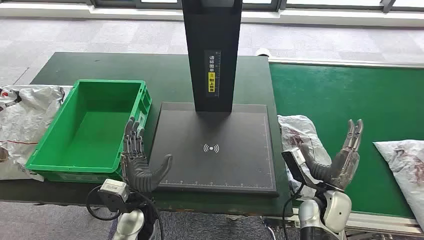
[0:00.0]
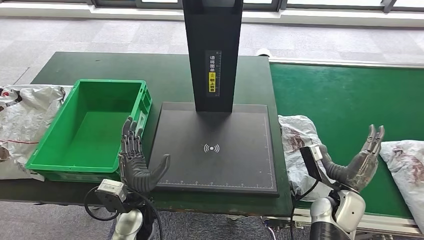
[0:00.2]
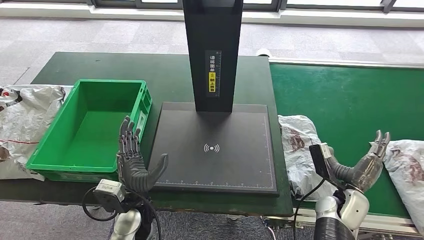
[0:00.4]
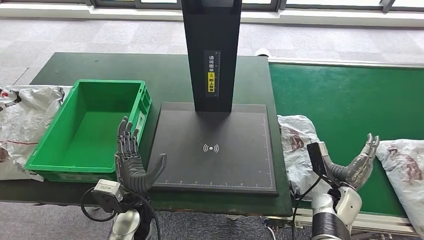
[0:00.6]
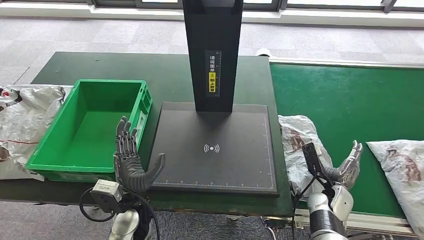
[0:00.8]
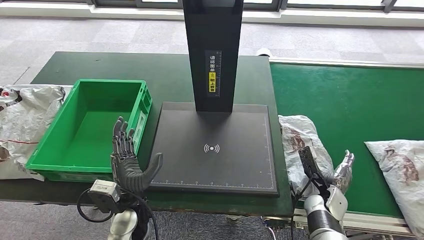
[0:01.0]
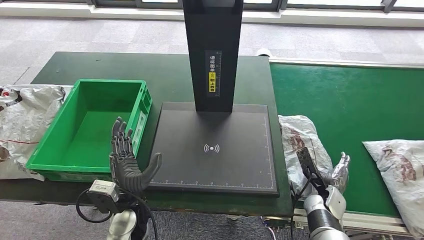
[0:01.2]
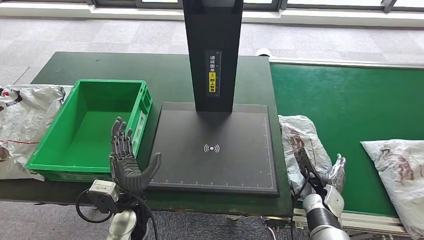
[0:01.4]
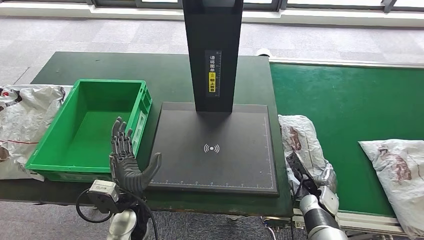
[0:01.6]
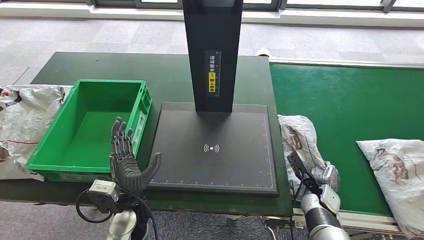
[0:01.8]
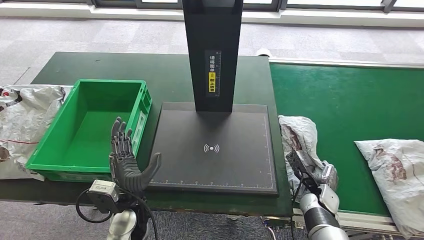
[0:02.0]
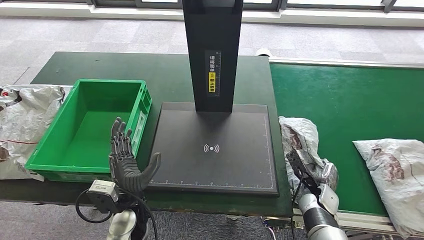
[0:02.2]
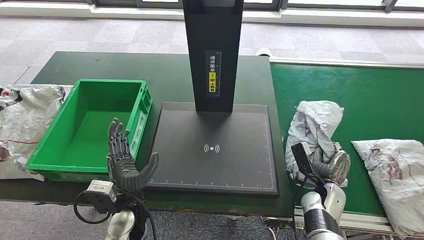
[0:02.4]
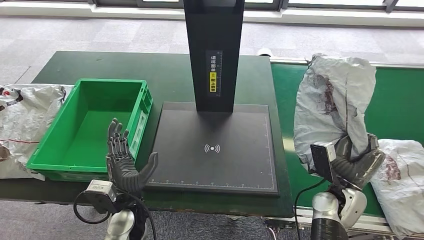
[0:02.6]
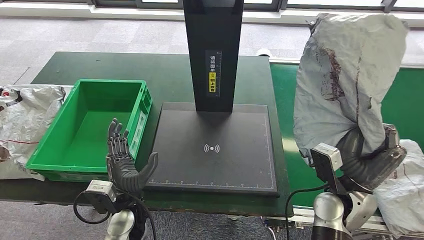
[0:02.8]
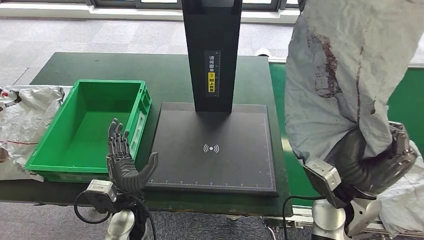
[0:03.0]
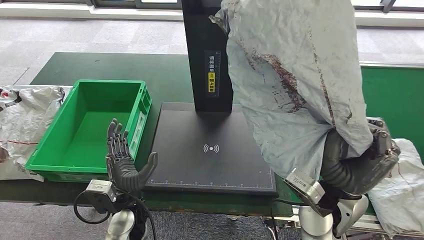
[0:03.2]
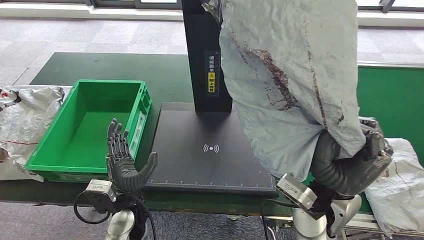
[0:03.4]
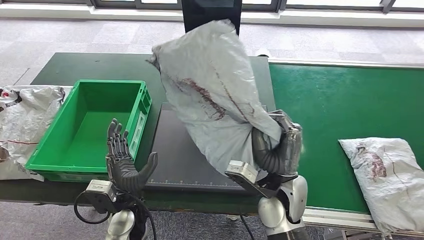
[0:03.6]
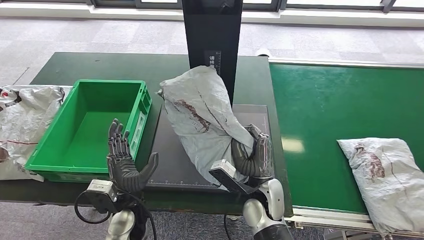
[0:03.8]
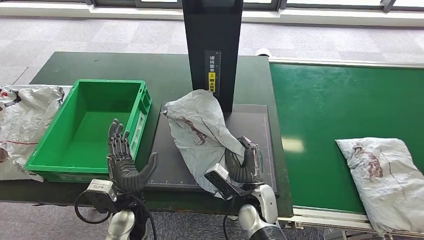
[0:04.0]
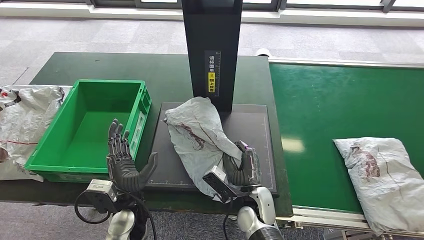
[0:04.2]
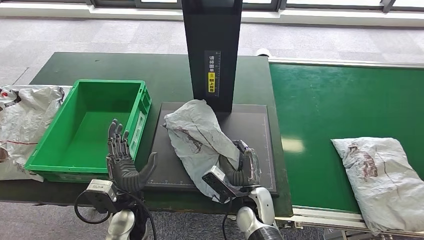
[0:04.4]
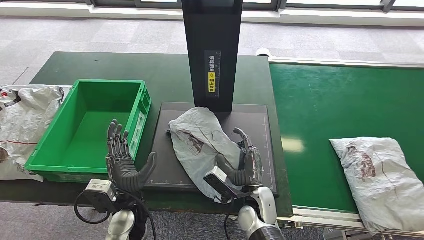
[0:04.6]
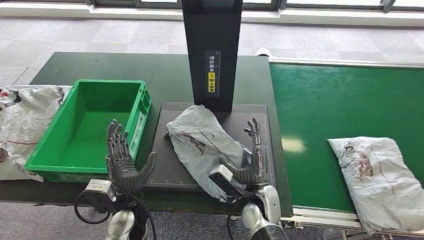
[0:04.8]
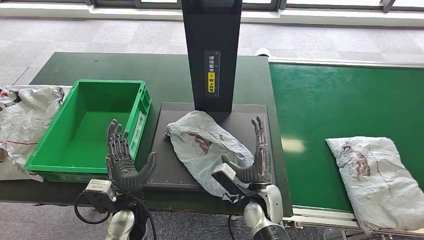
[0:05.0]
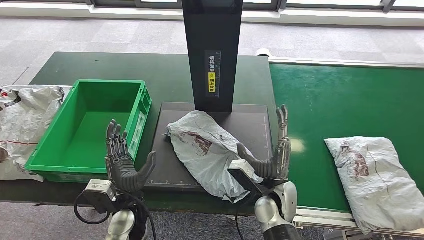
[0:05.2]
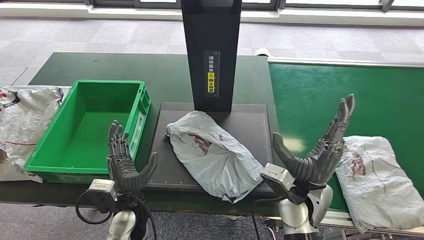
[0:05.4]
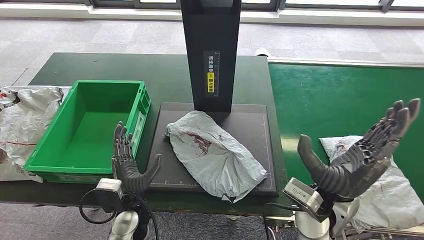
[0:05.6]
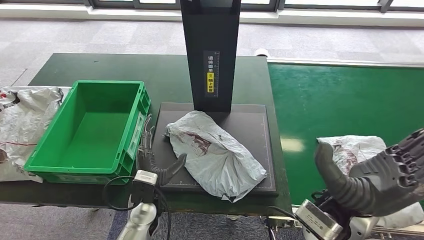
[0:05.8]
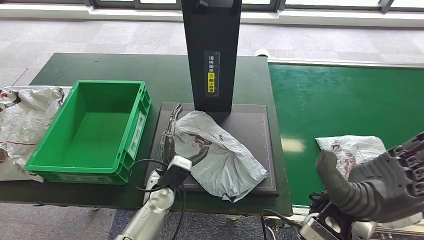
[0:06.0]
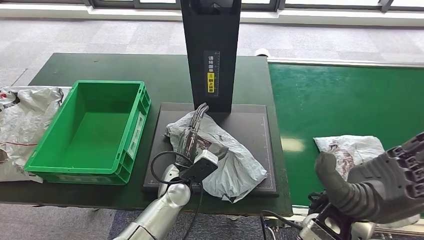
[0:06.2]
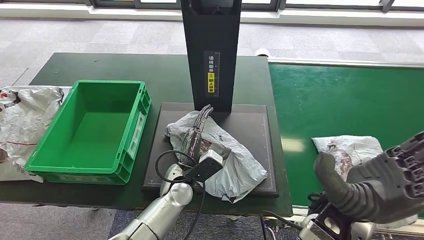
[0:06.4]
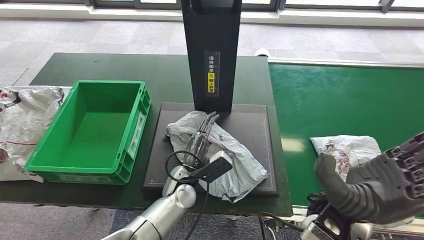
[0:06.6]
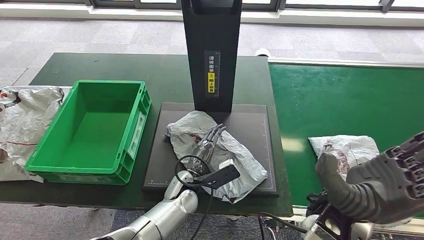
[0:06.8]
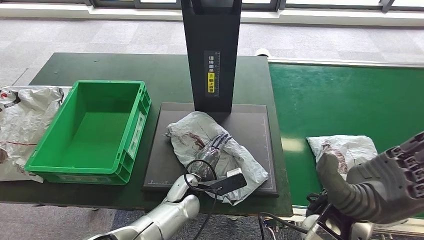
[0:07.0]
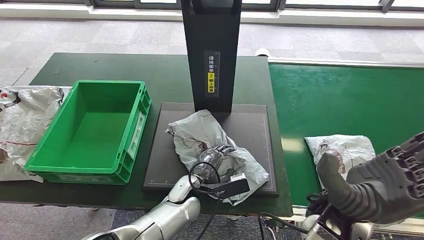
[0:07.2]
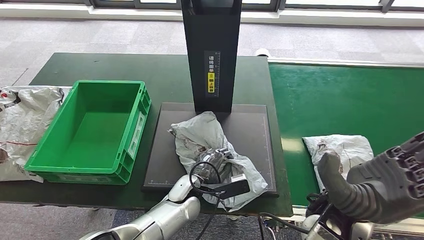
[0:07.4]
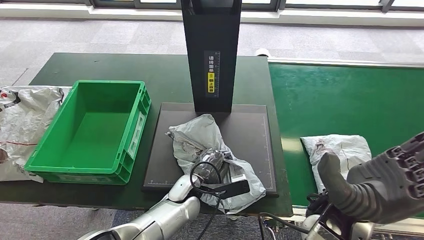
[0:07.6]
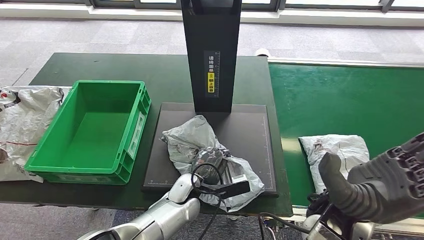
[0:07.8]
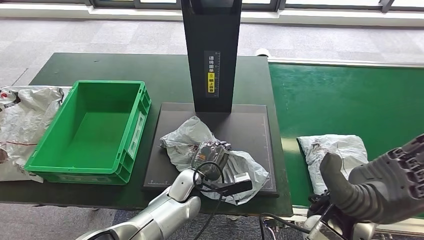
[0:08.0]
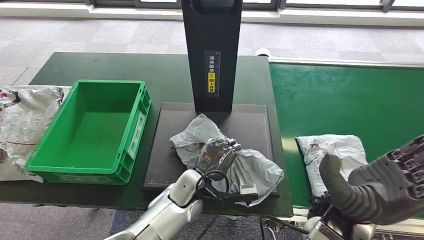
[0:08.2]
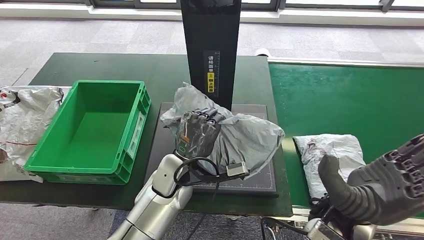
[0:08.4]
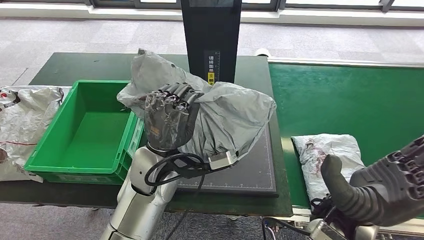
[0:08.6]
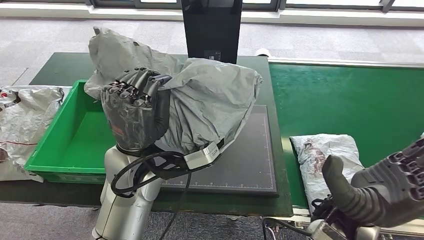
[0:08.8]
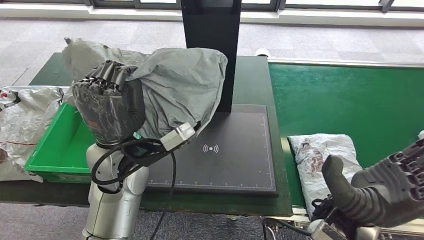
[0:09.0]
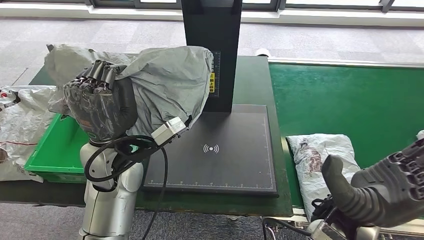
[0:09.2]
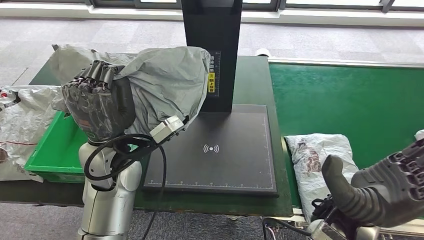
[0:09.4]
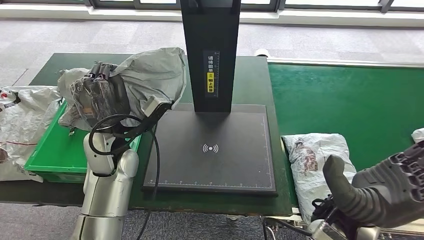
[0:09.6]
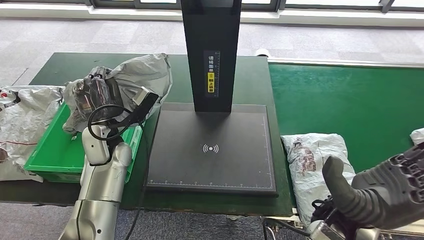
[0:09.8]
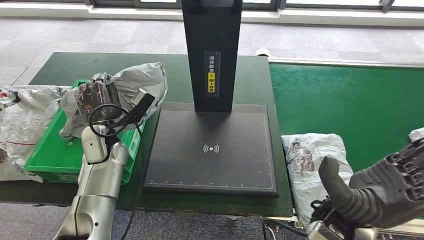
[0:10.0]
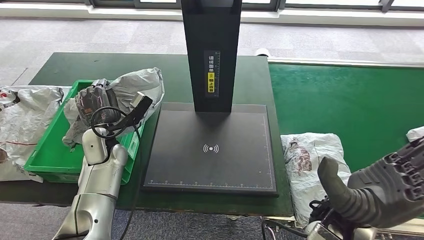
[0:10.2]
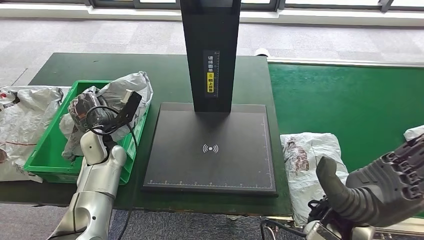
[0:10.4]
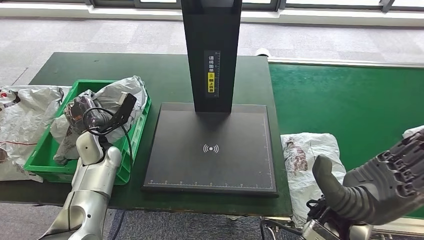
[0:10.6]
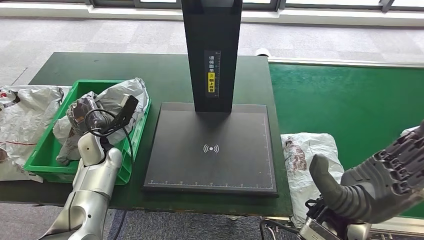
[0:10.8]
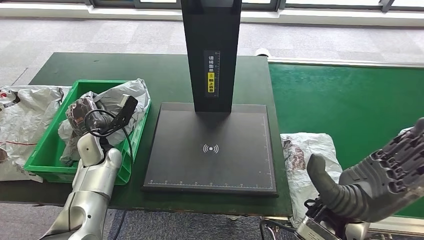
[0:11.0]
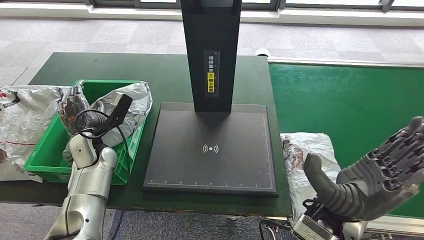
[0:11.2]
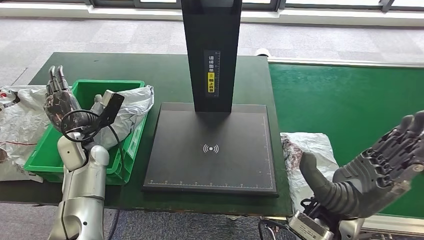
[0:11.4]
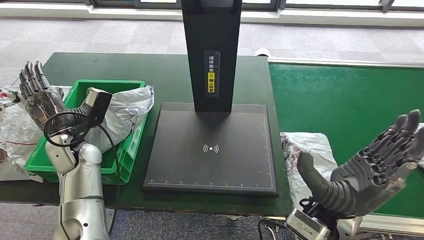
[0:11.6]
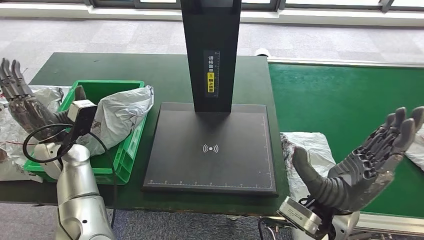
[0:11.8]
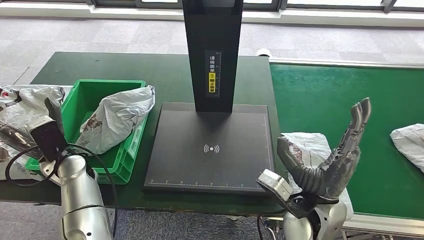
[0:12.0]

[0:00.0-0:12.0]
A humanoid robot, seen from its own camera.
Step, 0:00.0 to 0:03.2: Take the parcel off the conveyor belt.
Step, 0:03.6 to 0:05.2: Place the parcel onto the inbound machine.
Step, 0:05.6 to 0:09.2: Pick up the parcel from the inbound machine.
0:06.0 to 0:07.6: The left hand shifts about 5 cm to the right.

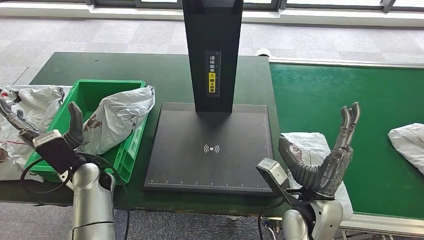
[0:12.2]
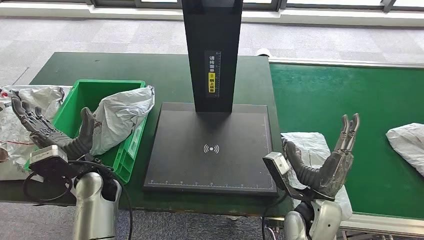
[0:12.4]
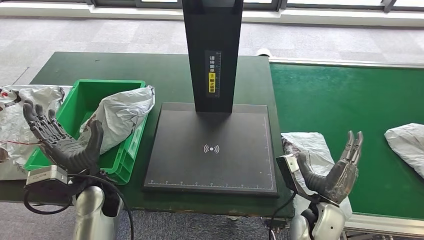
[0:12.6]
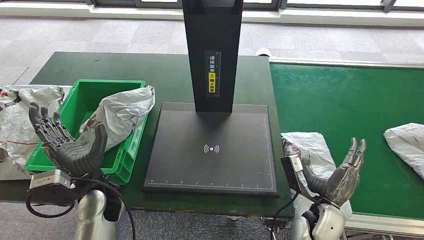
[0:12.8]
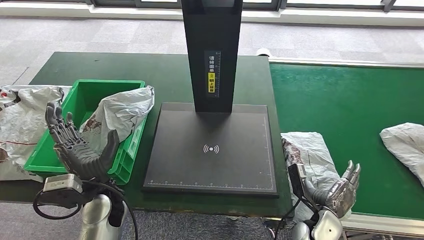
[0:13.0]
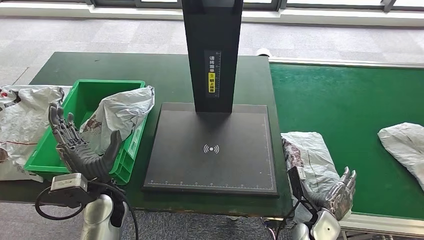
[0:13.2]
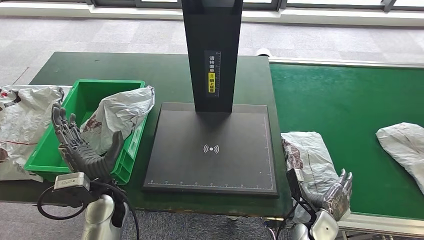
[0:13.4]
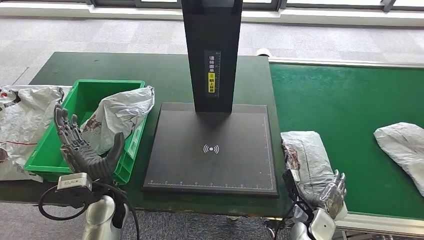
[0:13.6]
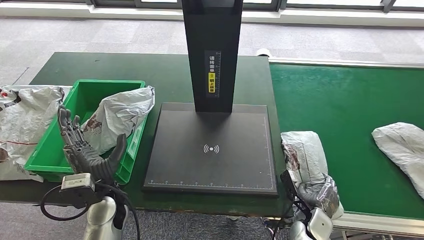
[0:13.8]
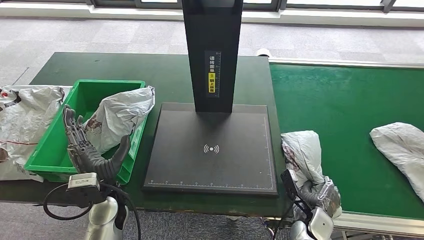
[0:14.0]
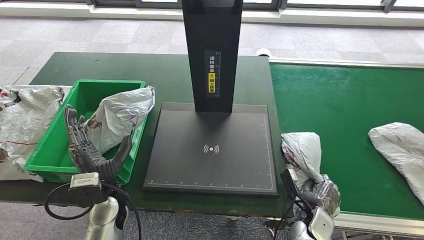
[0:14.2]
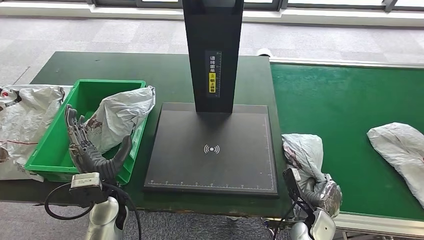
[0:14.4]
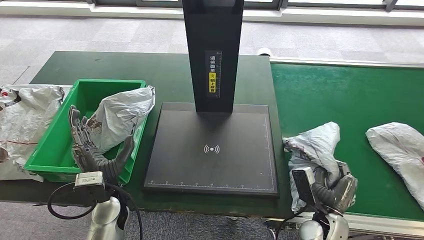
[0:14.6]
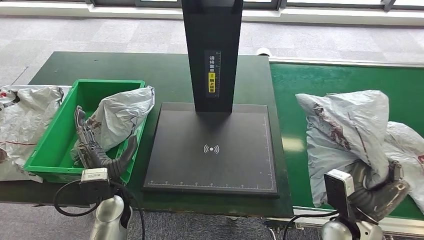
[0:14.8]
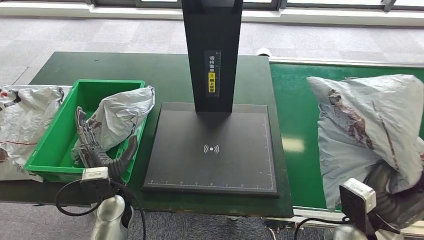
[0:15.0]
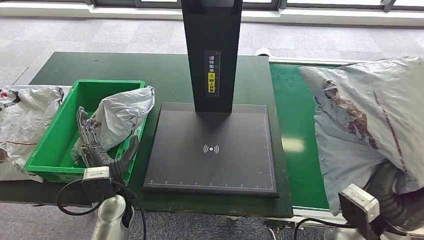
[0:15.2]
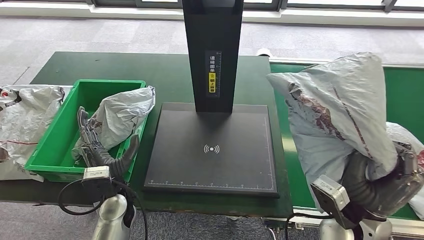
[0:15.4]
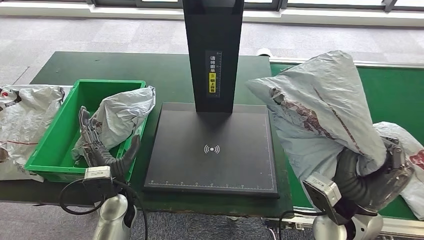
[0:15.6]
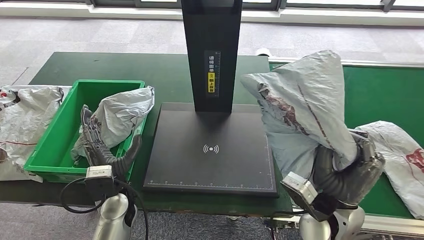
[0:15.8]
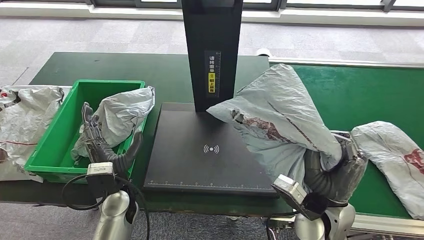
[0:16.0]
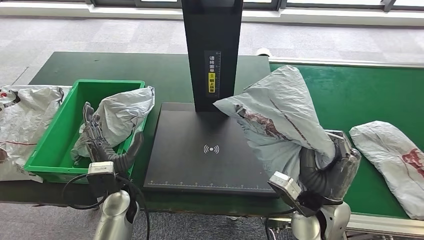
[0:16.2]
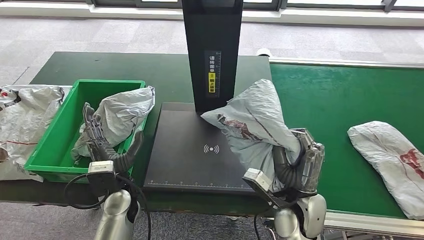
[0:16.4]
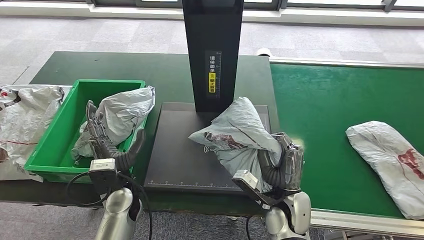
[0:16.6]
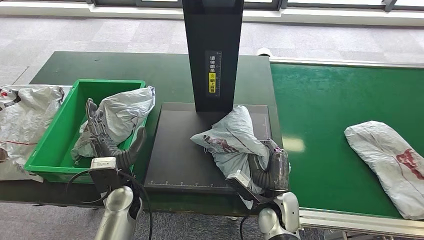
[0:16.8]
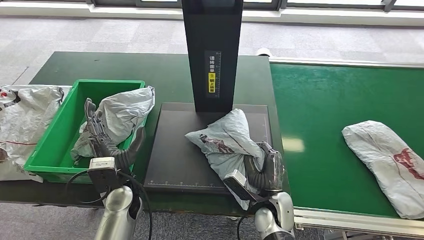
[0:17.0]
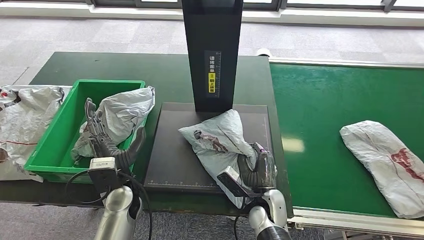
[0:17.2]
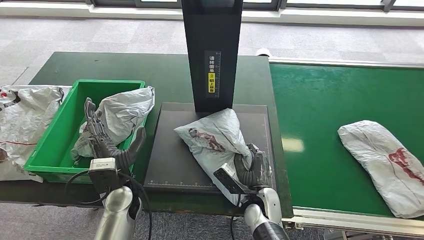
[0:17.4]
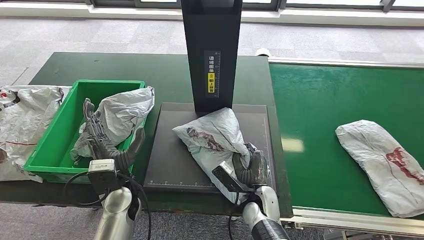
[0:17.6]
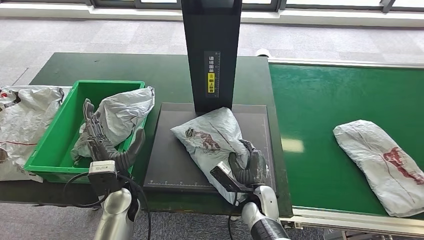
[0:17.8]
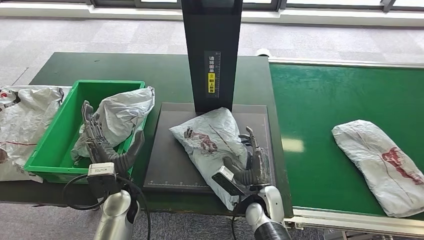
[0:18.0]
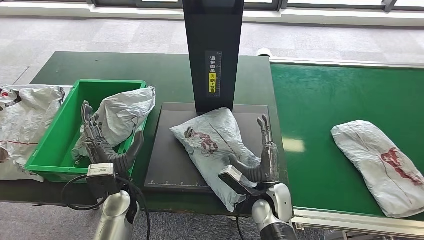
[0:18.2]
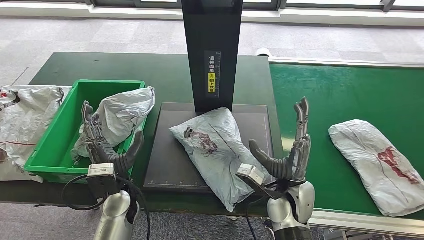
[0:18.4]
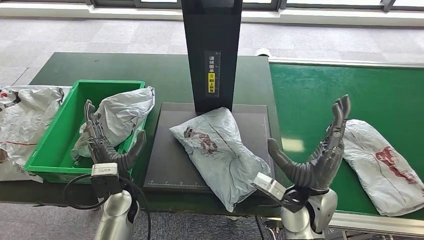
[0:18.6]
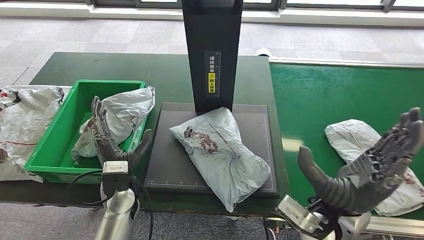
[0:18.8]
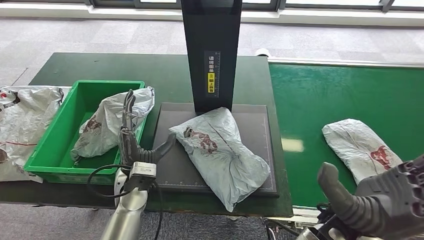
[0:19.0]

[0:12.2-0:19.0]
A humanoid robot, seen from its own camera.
Step, 0:14.0 to 0:16.2: Pick up the parcel from the conveyor belt.
Step, 0:16.4 to 0:18.4: Place the parcel onto the inbound machine.
0:12.2 to 0:13.6: The left hand goes approximately 10 cm backward and to the right; the right hand heads downward, covering roughly 15 cm.
0:17.6 to 0:19.0: The right hand travels upward and to the right by approximately 25 cm.
